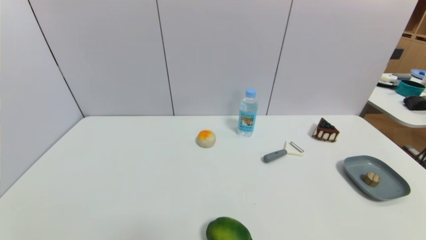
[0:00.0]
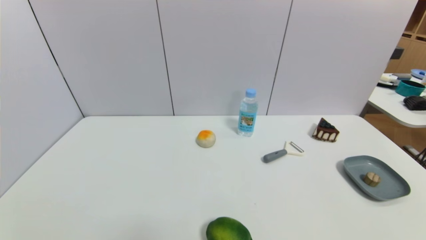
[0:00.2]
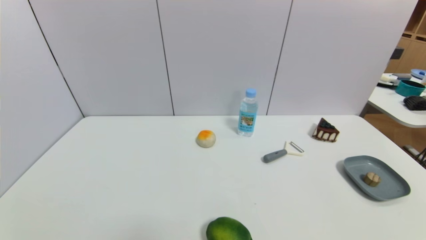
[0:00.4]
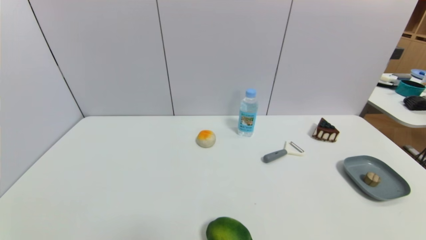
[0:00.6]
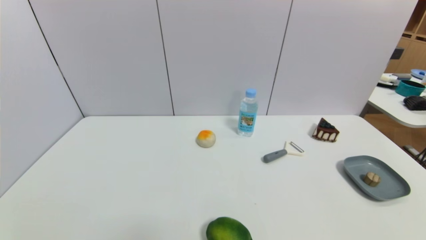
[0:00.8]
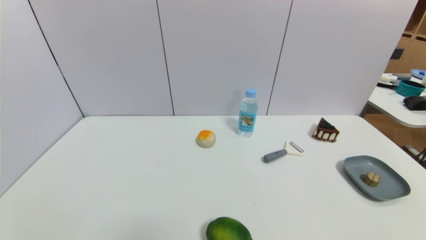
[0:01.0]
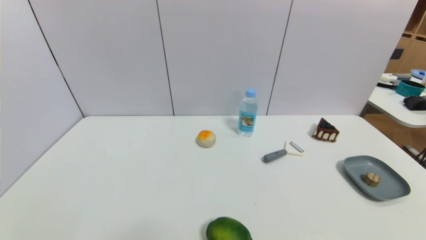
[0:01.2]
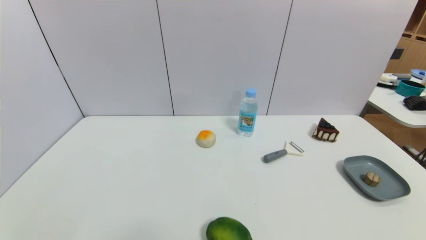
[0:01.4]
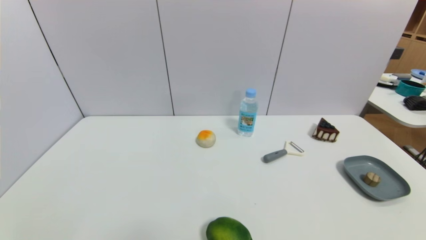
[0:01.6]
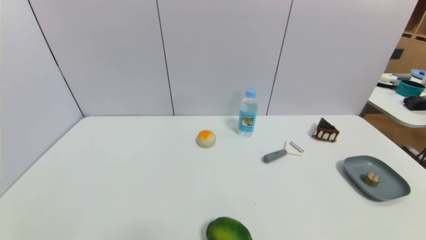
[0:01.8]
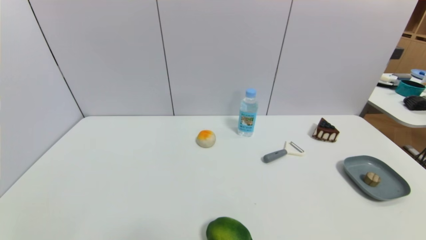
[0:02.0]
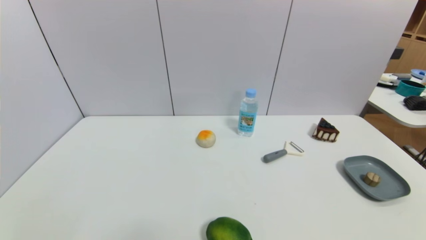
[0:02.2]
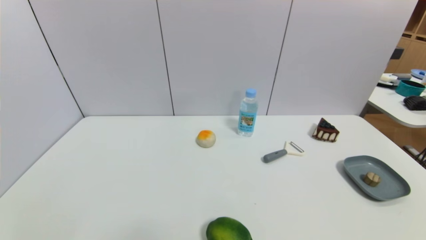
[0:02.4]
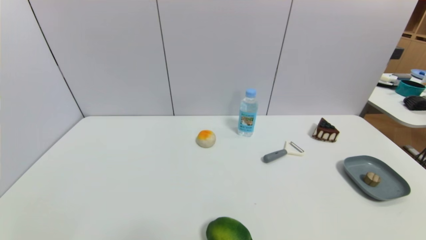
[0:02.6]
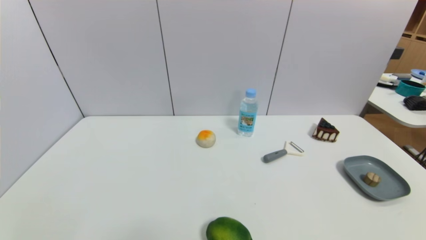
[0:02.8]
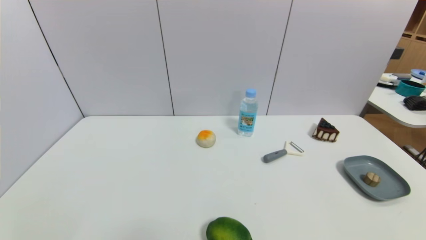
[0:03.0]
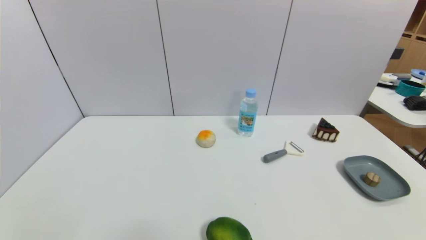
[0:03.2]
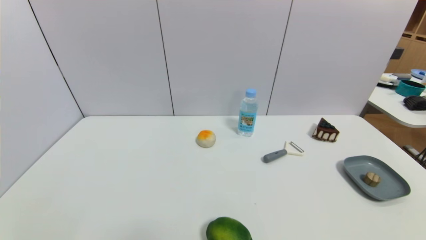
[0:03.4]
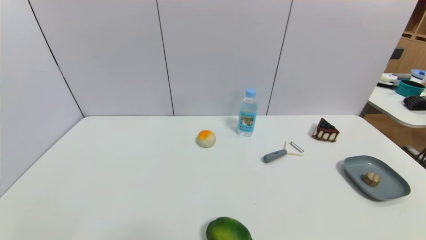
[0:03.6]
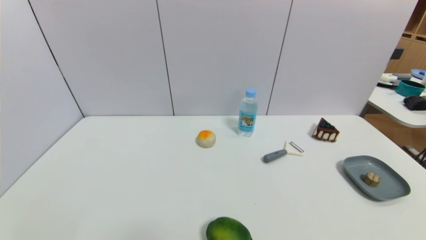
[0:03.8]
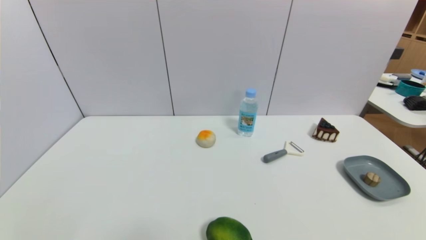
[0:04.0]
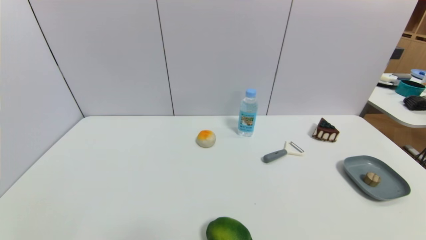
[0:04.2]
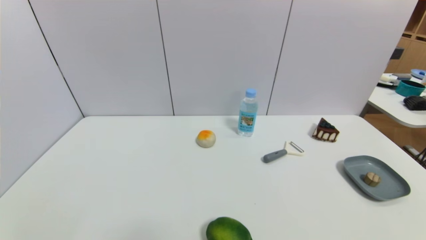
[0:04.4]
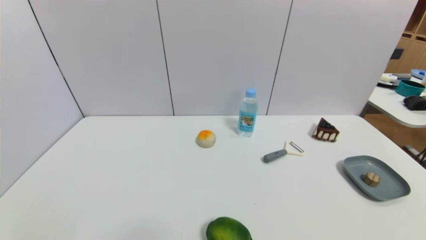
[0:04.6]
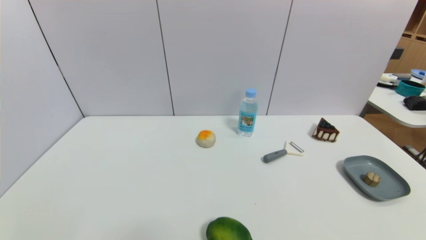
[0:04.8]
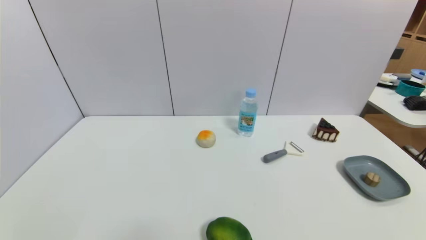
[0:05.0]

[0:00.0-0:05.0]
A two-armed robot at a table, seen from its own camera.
Task of the whole recording: use a gripper to pick the target object and place on the dish.
0:00.0 to 0:05.0: Both grippers stay put.

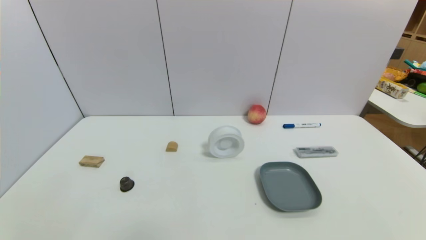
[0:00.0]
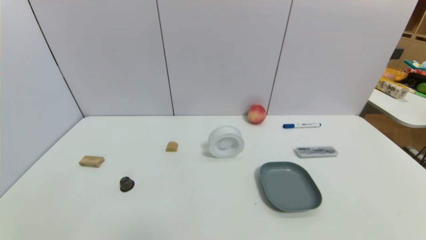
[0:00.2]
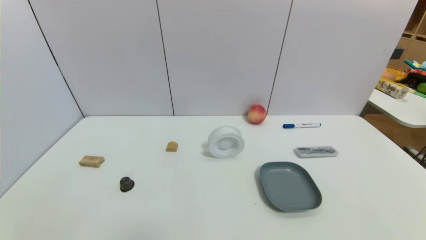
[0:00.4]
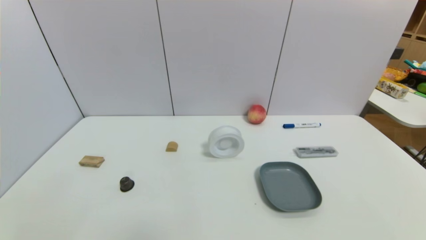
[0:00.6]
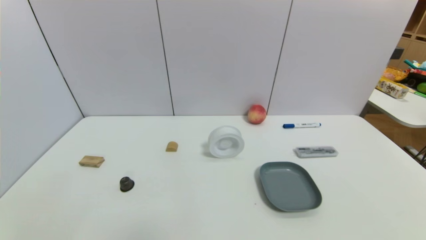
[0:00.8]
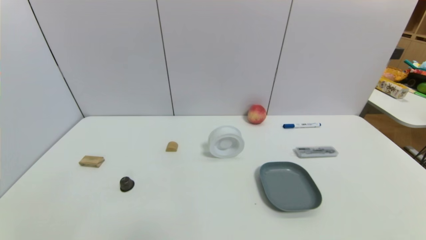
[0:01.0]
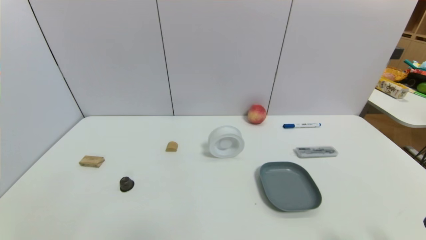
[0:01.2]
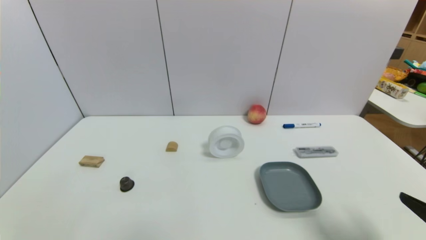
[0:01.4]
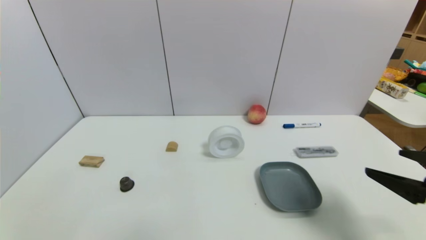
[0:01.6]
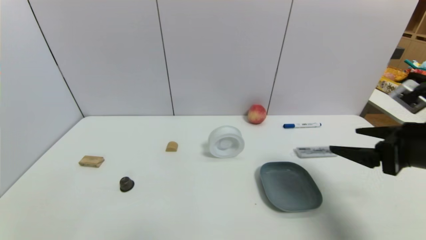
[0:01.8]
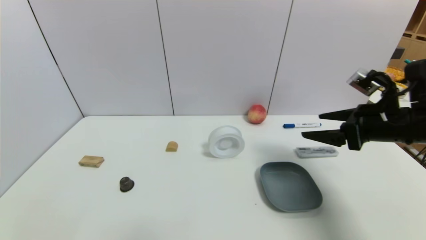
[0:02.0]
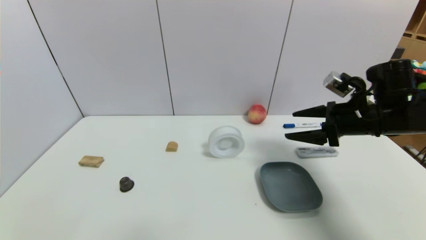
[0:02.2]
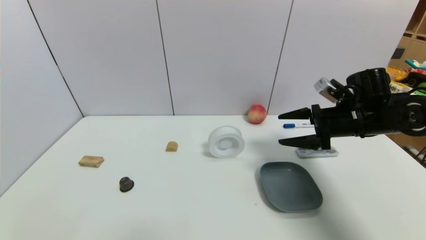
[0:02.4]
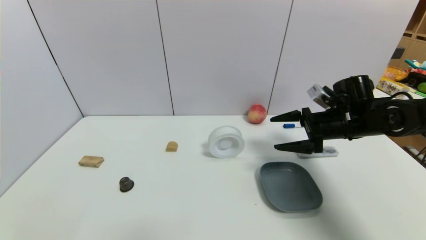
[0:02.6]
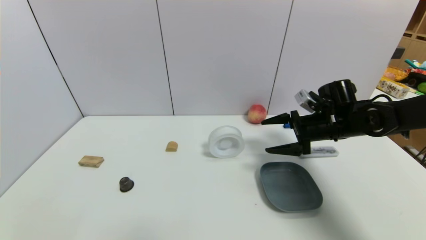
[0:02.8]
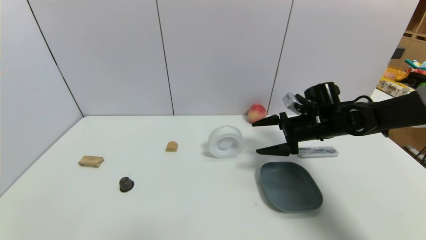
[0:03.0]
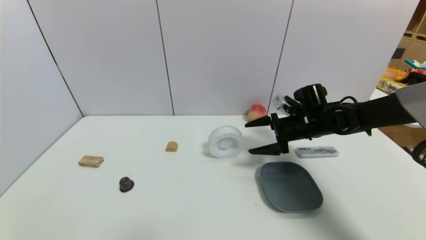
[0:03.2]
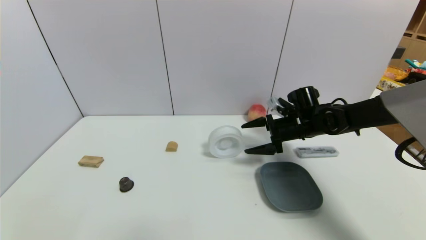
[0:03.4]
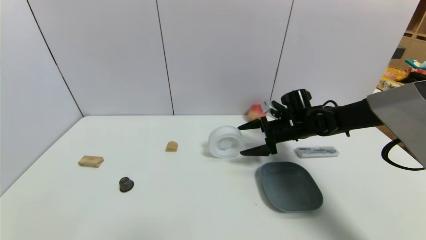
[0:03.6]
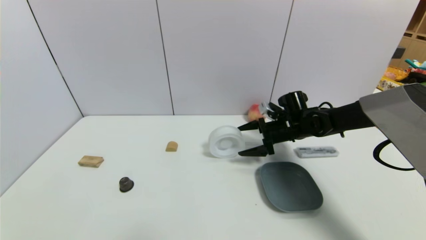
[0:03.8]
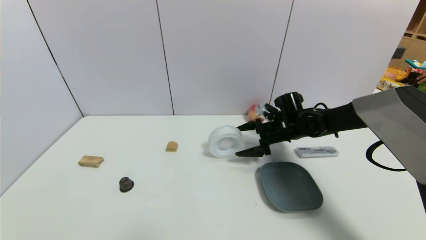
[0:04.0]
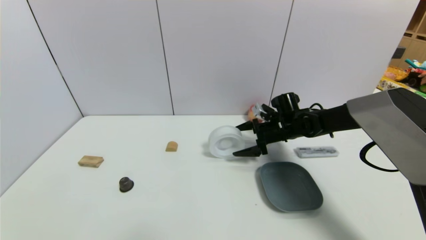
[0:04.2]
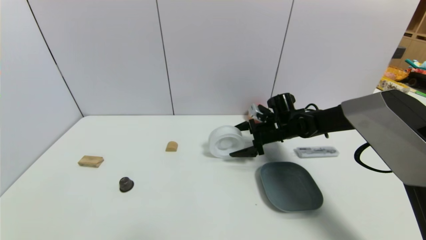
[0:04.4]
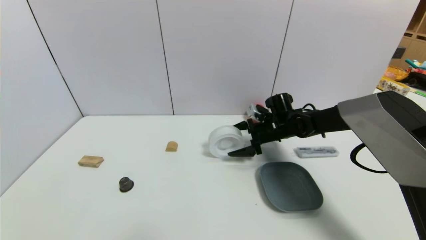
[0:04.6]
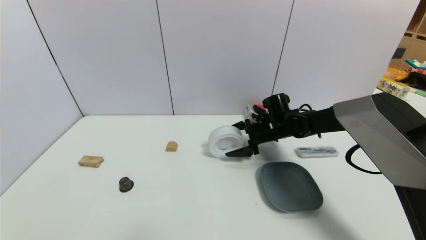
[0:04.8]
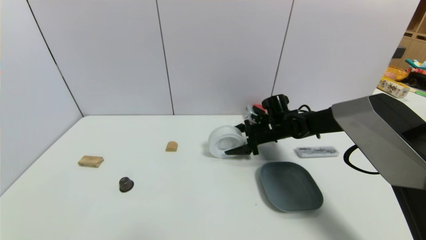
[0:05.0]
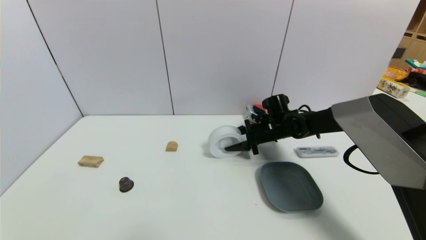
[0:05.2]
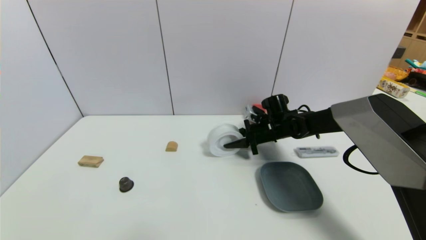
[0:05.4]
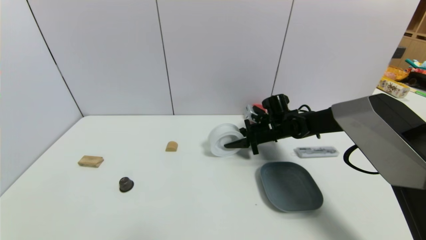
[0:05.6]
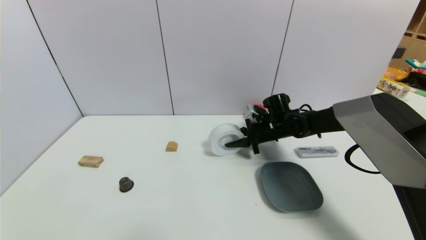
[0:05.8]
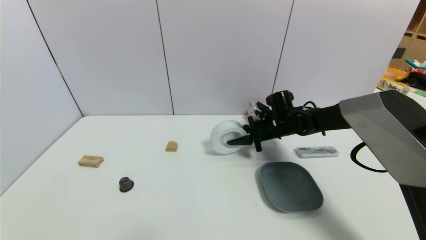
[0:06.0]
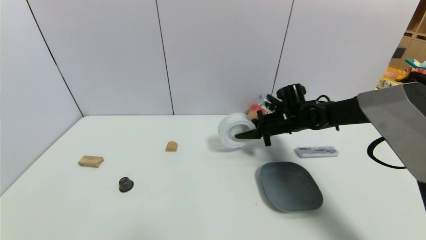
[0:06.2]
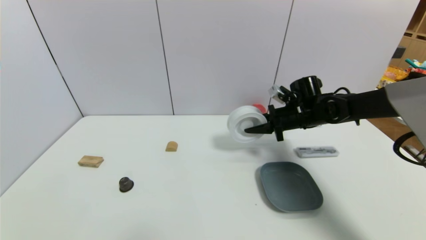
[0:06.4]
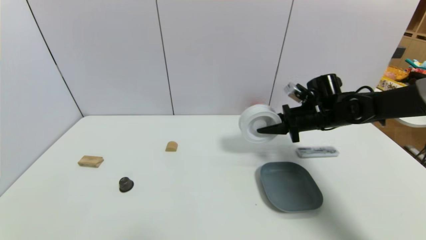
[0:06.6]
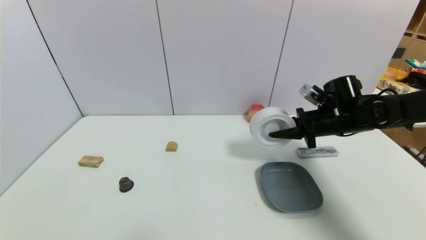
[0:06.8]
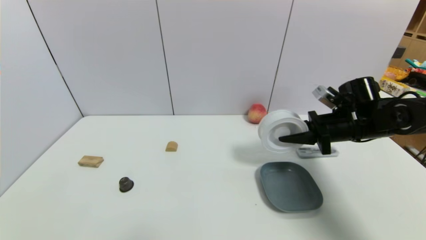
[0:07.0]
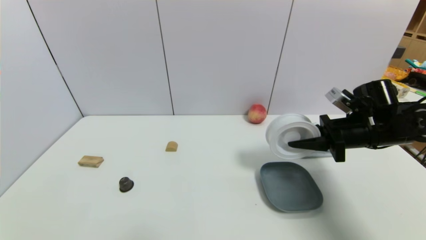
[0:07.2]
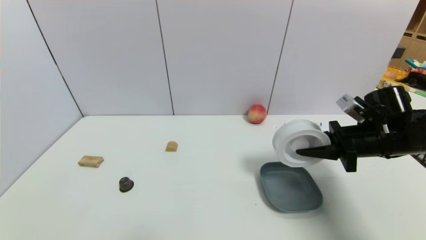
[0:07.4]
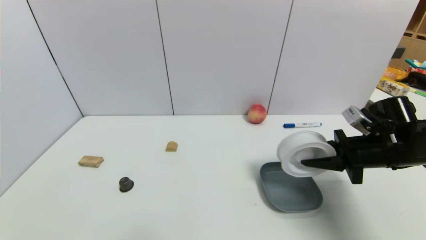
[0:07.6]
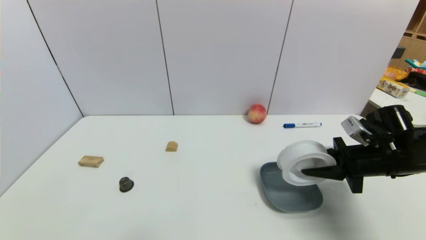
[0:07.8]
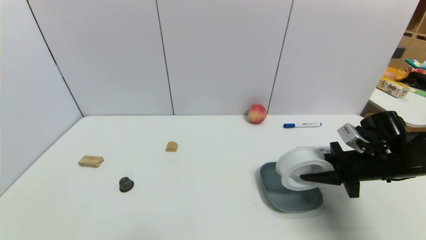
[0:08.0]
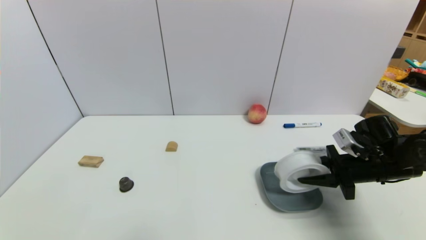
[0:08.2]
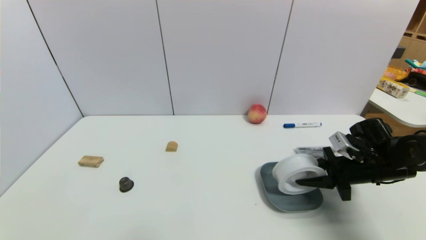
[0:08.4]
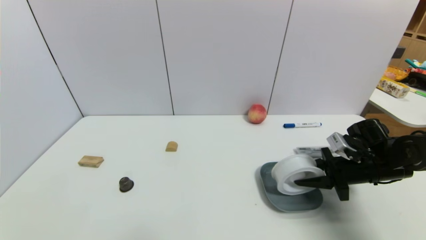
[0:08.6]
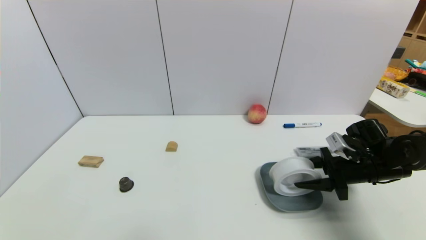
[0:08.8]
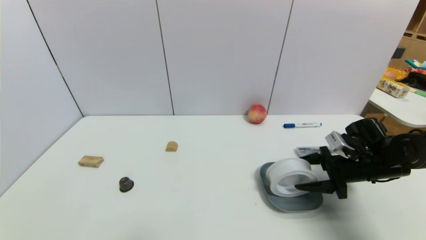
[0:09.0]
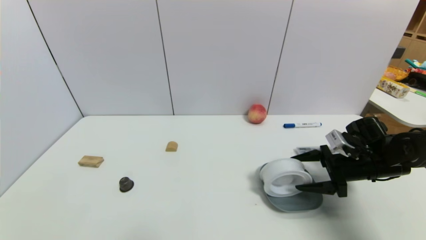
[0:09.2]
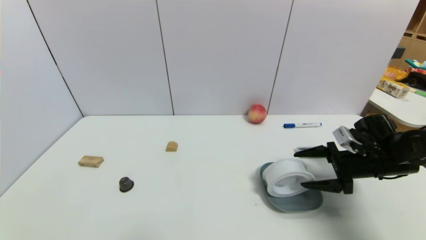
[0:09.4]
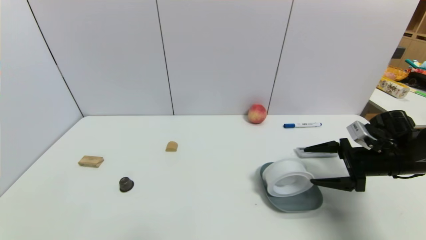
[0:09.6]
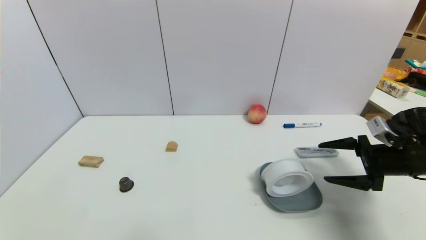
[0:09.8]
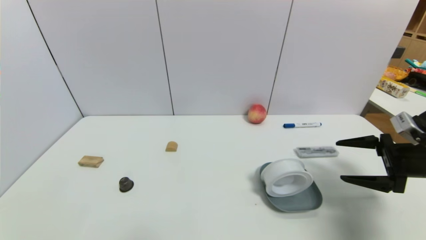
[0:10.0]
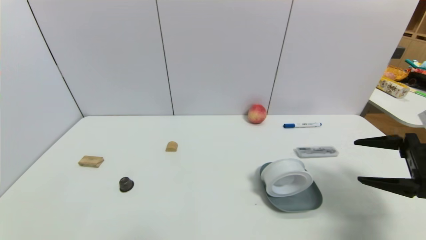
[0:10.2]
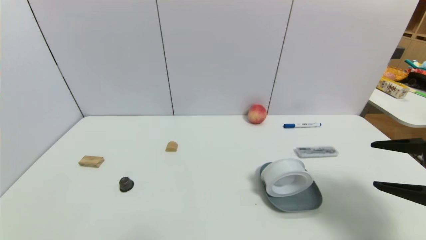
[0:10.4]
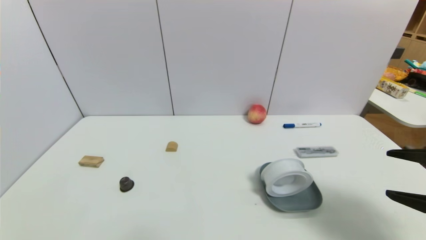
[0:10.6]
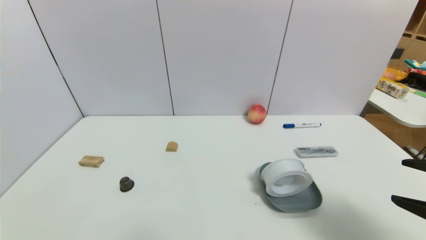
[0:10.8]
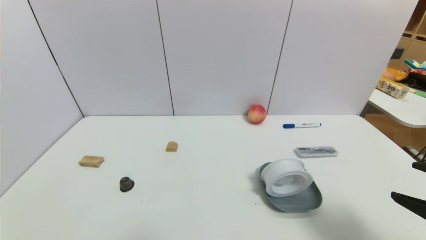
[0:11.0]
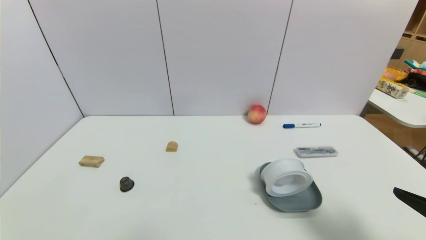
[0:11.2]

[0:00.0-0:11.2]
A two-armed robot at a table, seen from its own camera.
Task of the whole recording: use a gripper to pick the target object and place on the dish.
Step, 0:00.0 to 0:05.4: Grasp the tape with the right gripper.
Step, 0:05.6 to 0:09.8: Place the tape on the dish with the right gripper.
0:00.0 to 0:01.6: The right gripper shifts roughly 20 cm forward and upward.
0:01.6 to 0:03.2: The right gripper moves forward, roughly 25 cm.
0:03.2 to 0:04.8: The right gripper travels to the left by about 5 cm.
0:04.8 to 0:06.4: The right gripper moves to the right and upward, some 10 cm, and closes up.
0:06.4 to 0:08.0: The right gripper heads backward and to the right, covering approximately 15 cm.
0:08.0 to 0:09.6: The right gripper opens.
0:09.6 to 0:11.2: The right gripper moves backward, roughly 20 cm.
